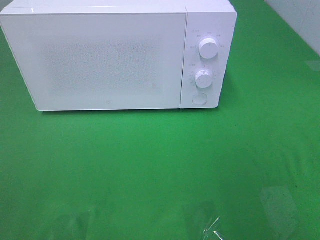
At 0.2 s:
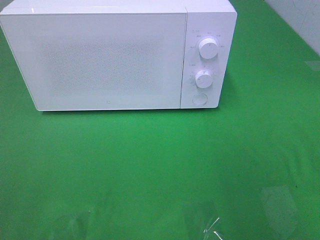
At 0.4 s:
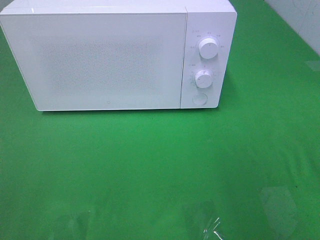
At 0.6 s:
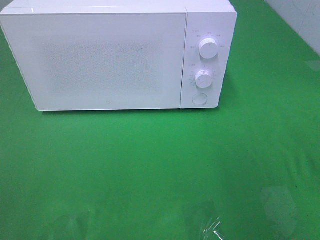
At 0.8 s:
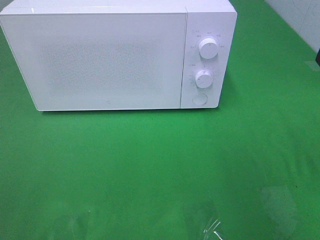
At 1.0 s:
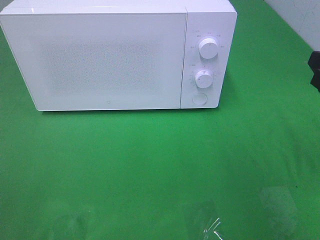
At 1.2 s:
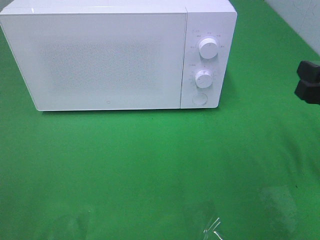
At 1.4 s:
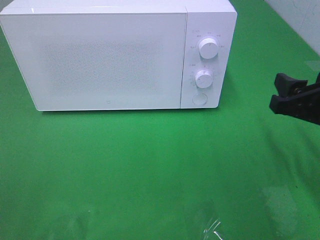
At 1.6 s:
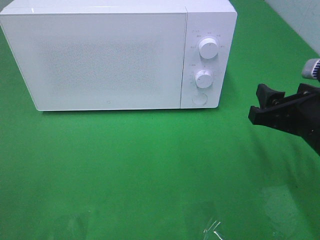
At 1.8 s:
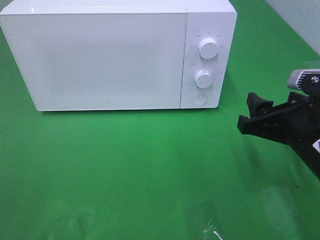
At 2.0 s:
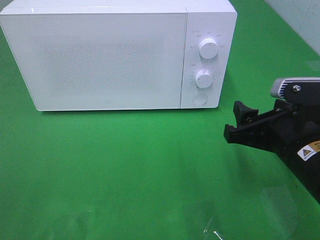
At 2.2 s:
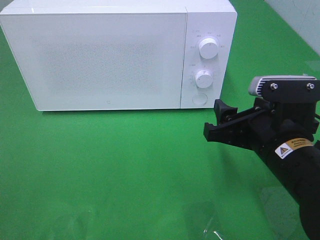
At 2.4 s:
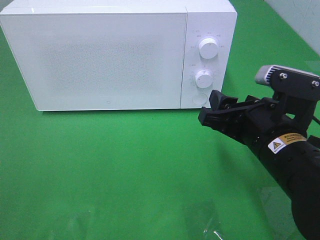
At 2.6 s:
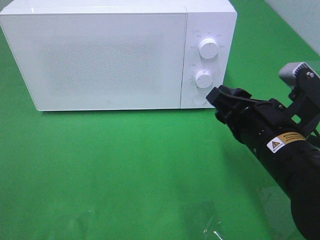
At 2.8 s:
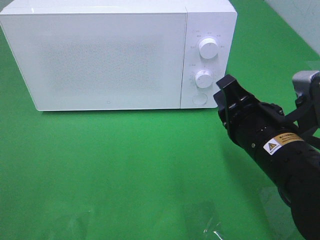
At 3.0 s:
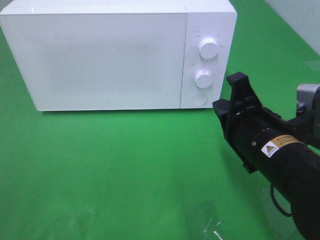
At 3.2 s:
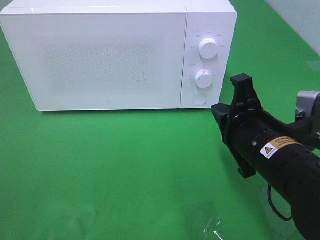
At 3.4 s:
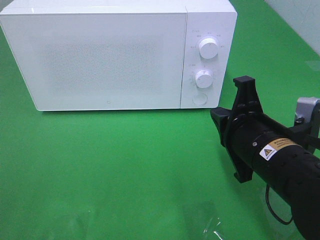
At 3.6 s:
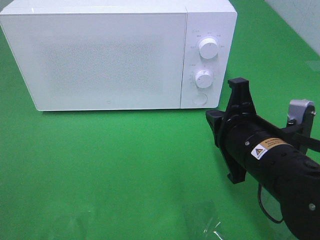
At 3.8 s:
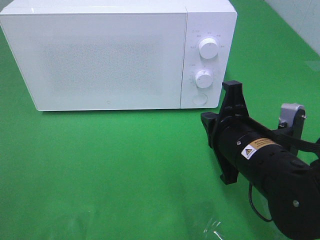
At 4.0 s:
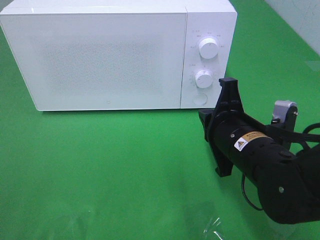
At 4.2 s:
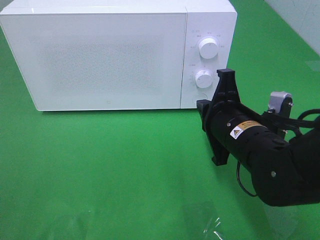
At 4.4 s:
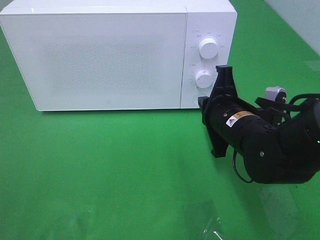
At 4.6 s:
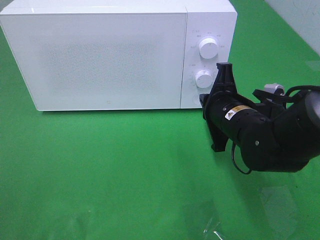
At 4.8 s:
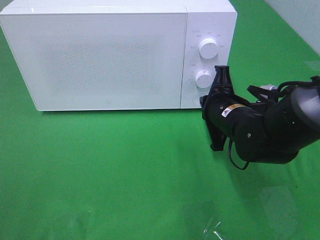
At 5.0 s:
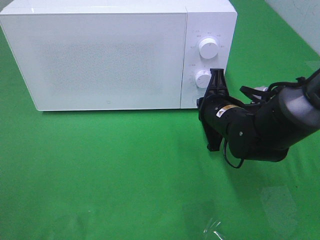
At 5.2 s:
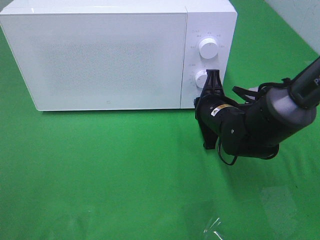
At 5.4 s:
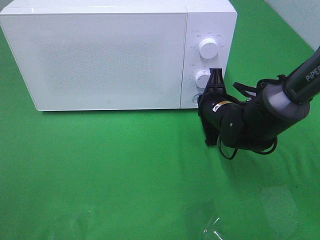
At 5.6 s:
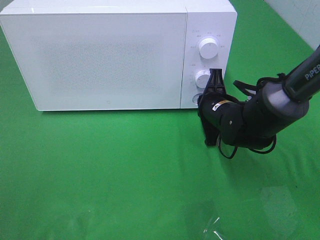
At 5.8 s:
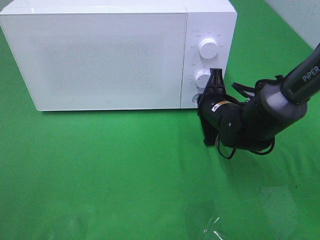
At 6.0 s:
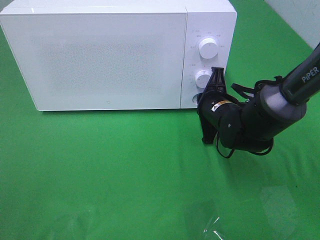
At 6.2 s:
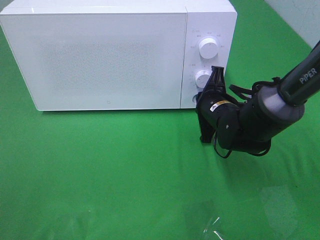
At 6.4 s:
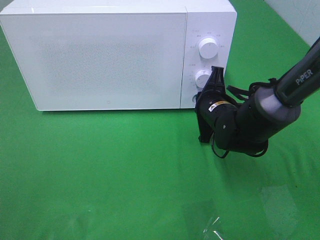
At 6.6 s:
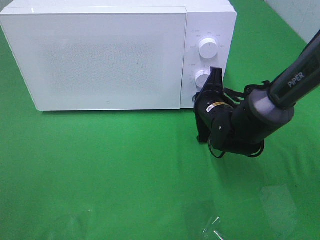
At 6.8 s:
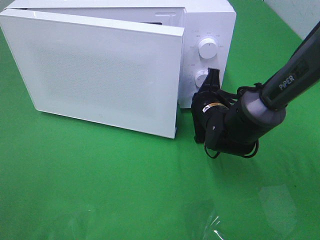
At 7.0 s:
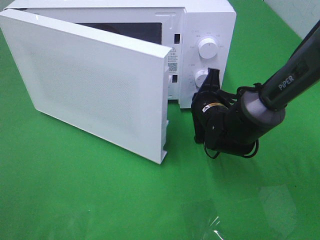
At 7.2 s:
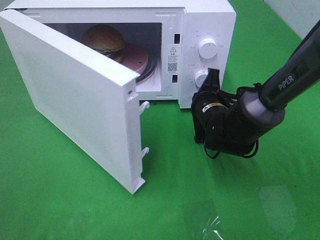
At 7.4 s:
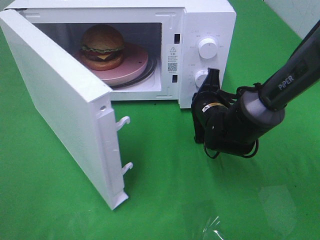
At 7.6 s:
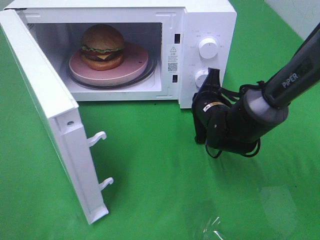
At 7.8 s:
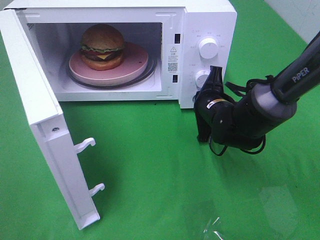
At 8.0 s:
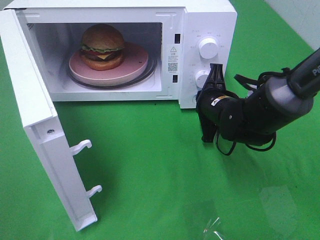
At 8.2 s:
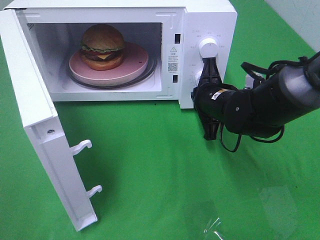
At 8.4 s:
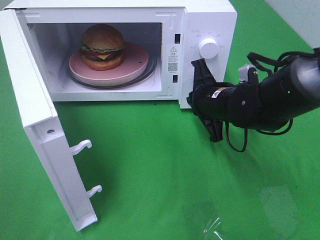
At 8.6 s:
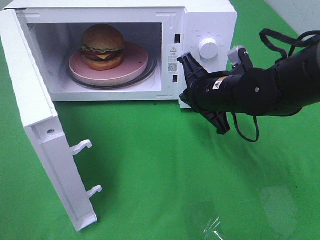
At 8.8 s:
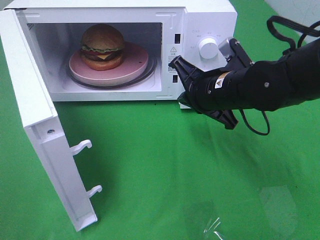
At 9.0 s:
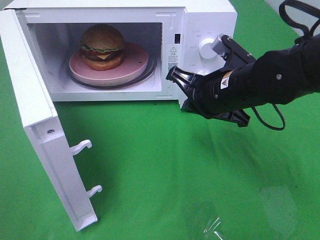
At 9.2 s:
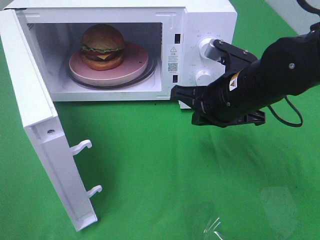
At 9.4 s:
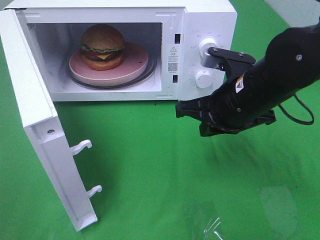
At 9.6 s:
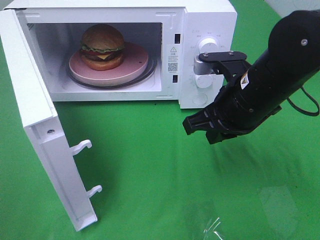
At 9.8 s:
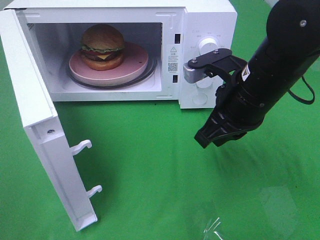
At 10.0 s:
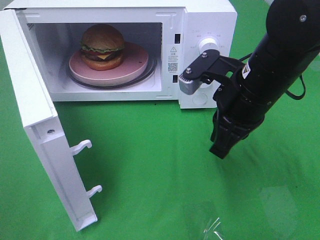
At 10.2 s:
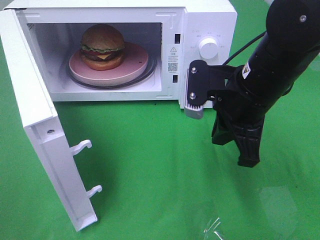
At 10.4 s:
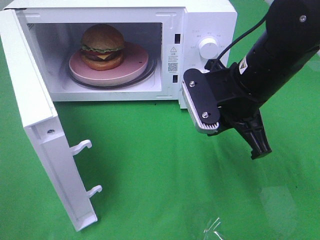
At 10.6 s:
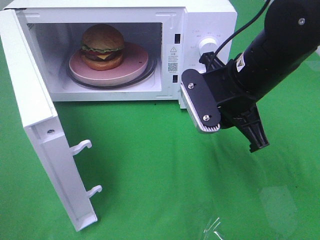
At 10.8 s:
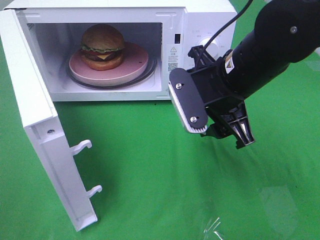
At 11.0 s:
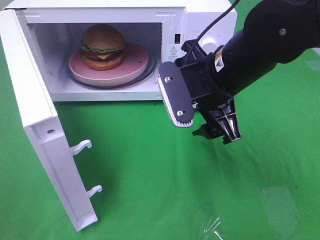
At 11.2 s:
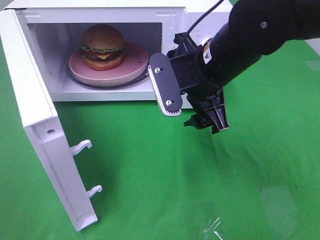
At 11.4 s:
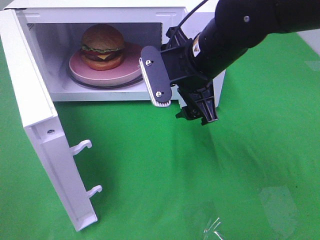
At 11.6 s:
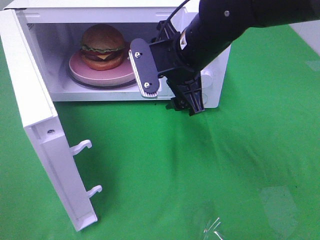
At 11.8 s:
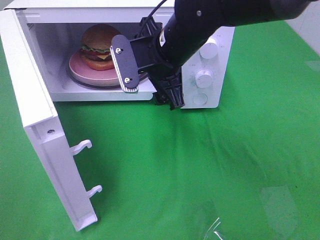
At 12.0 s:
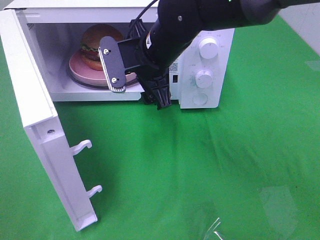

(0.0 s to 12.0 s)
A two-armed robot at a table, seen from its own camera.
Task of the whole recording: Heat the burger.
Step, 0.0 s - 8.2 s: Right hand: press the switch.
0.0 s - 1.6 s: The right gripper moves downward, forward and to the left, about 15 cm.
1.6 s - 3.0 s: The right gripper is displaced to the left by some 10 cm, and closes its fingers.
3.0 s - 4.4 s: The right gripper travels forward by approximately 5 cm.
4.4 s - 6.0 s: The right gripper is displaced forward by approximately 10 cm.
7.6 s - 9.0 s: The right gripper is displaced upward and backward by about 10 cm.
10.4 s - 12.0 s: The right gripper travels to the left and forward by about 15 cm, and opens up.

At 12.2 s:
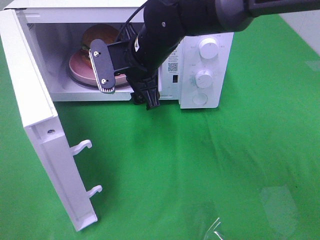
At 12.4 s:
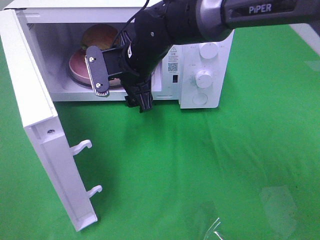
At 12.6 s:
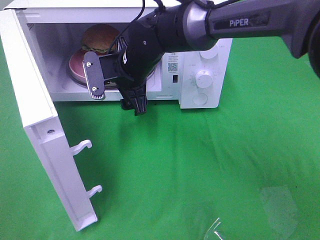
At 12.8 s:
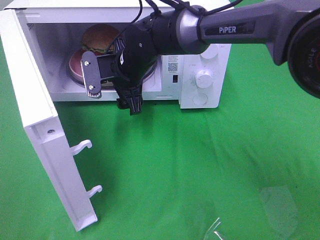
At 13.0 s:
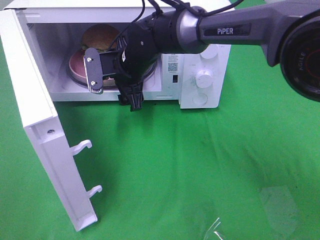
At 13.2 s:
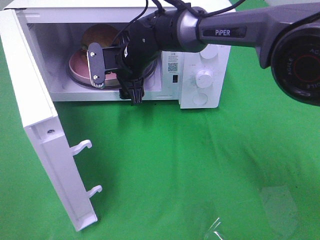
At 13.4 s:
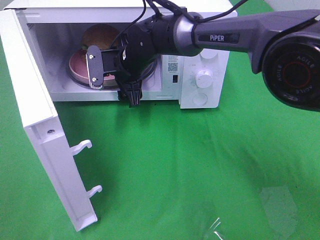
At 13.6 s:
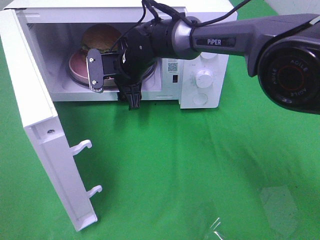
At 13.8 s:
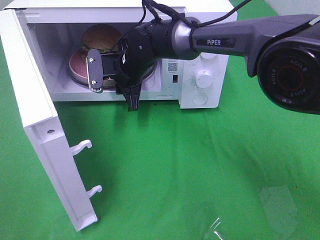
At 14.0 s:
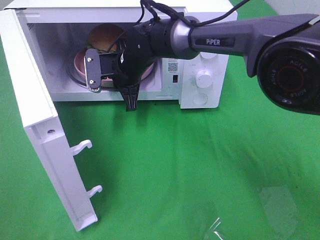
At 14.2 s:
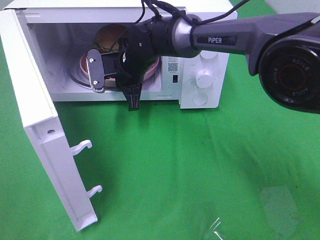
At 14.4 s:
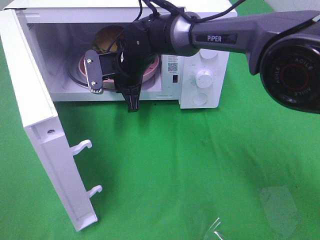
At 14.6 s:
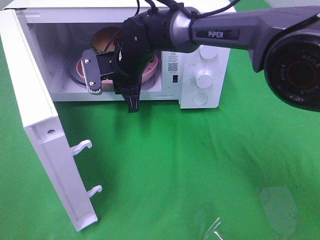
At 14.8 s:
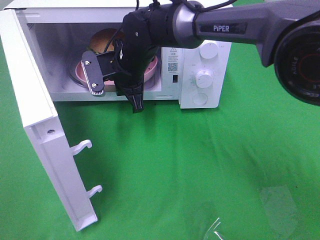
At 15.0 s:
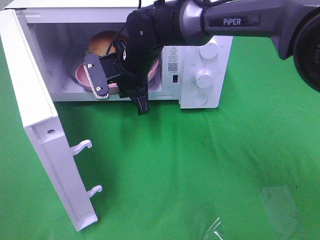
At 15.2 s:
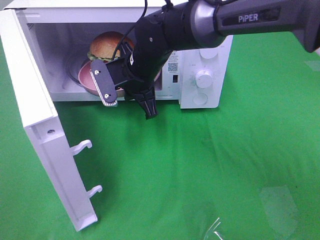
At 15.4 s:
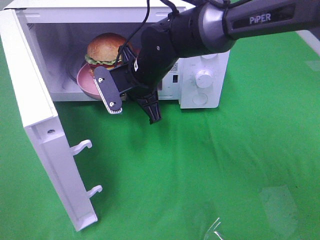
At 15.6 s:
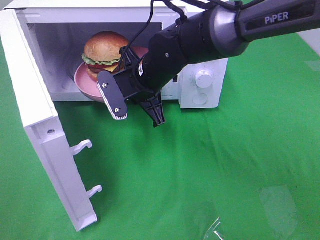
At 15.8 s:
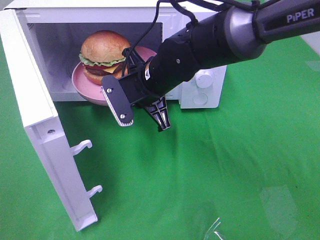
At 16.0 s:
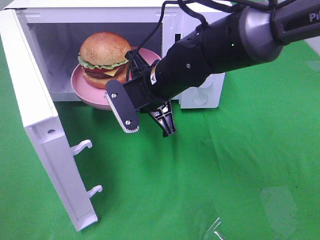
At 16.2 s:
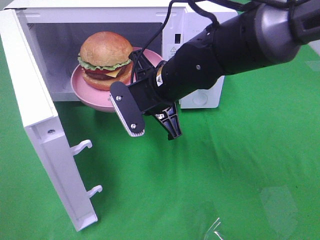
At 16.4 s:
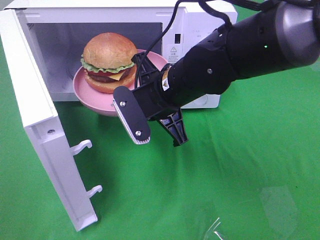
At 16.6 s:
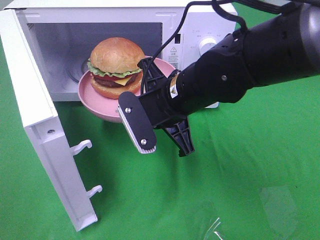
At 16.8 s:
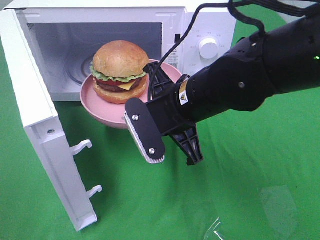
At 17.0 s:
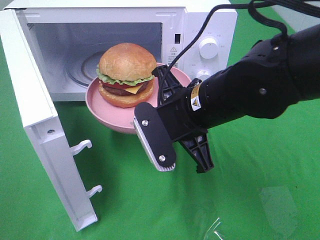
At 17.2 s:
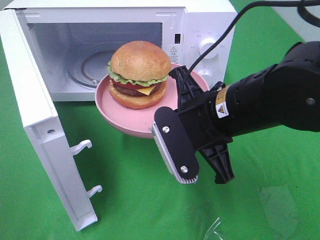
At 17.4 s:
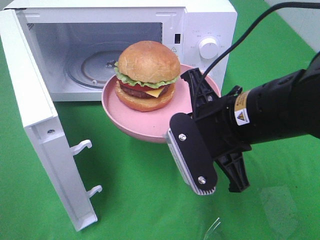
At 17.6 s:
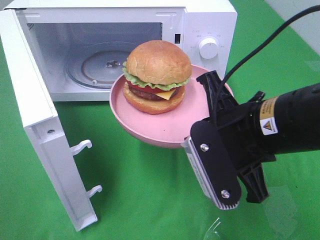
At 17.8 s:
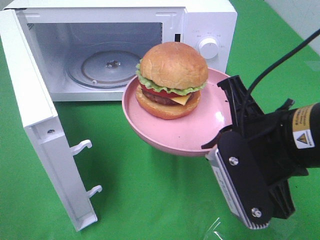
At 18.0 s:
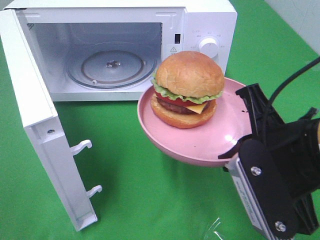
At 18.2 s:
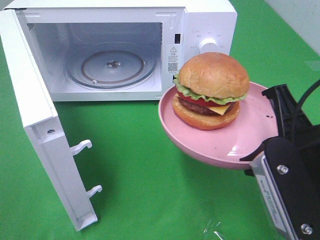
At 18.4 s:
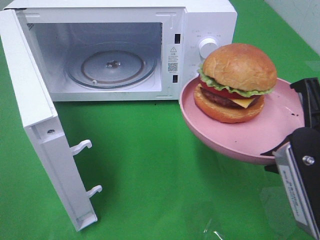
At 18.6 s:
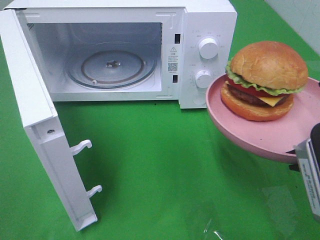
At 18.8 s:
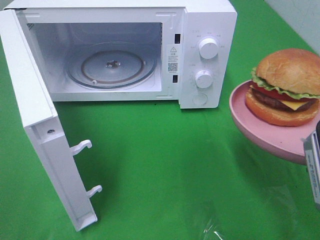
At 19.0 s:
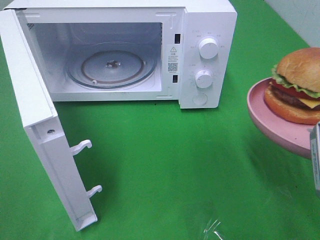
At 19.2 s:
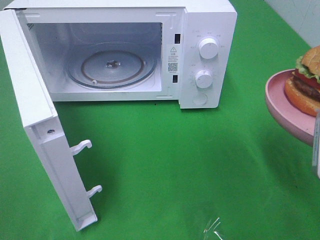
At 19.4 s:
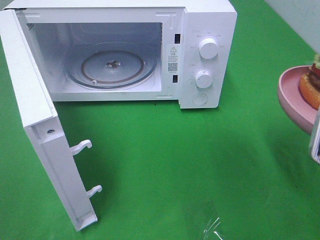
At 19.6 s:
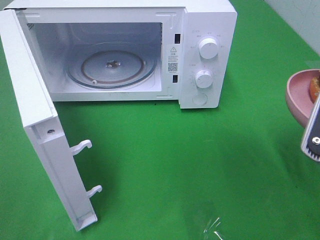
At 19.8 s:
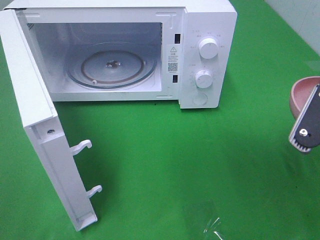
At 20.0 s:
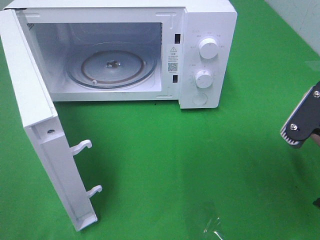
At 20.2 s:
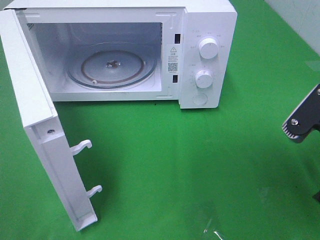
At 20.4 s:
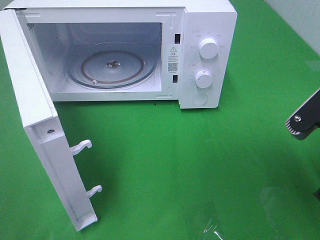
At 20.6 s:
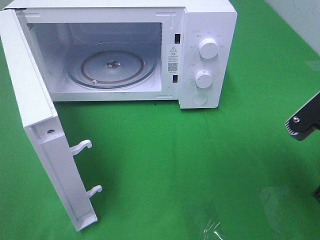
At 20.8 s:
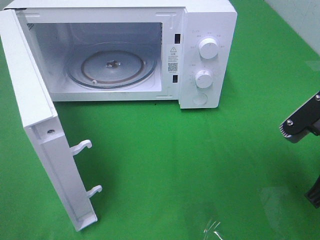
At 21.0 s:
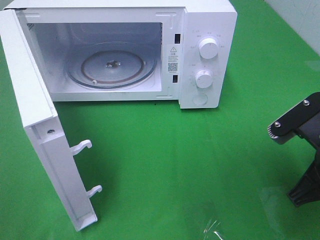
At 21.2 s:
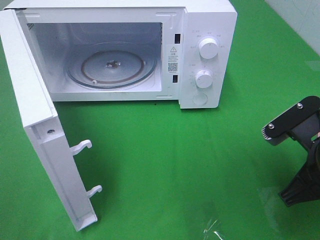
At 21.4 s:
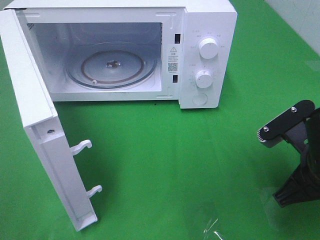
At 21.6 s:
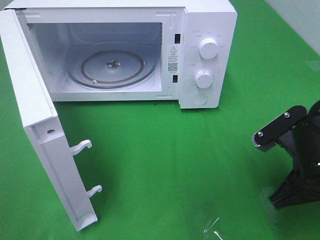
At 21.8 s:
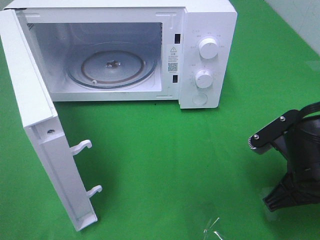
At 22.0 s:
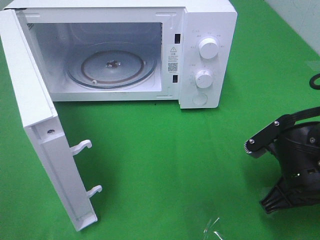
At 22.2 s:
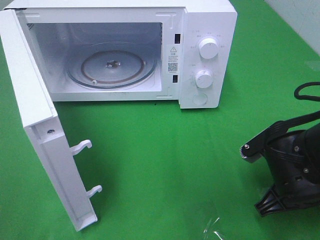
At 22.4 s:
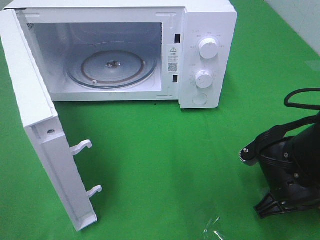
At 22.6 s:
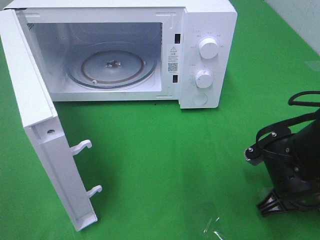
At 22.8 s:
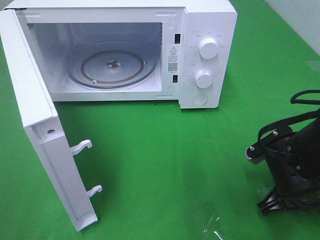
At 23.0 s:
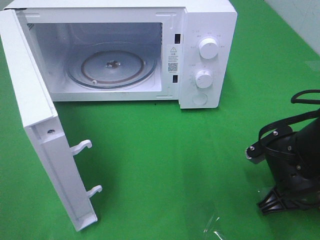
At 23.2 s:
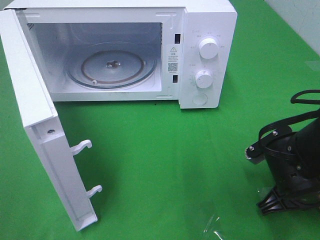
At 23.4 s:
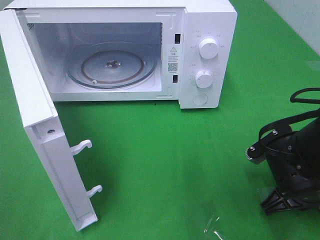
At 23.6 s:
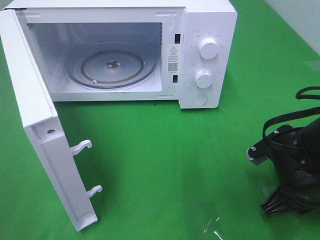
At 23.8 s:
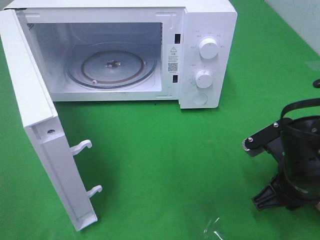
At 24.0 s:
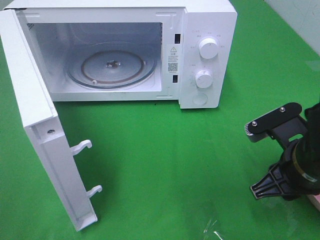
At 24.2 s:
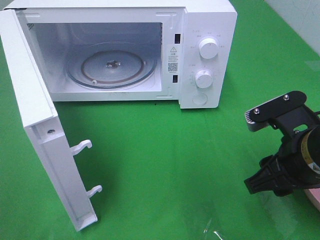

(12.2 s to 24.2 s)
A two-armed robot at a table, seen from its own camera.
Task of the whole recording: Heat the burger.
Step, 12.2 s - 14.6 s: Right hand: grab the plate with the hamburger.
Step, 14.8 s - 23.8 s: Right hand: place the plate on the table.
12.2 s - 13.8 s: The right gripper travels forward and downward by approximately 10 cm, and closes up.
13.8 s - 15.2 s: The right gripper shifts about 5 cm backward.
15.2 s - 16.6 s: The right gripper heads backward and to the right, covering approximately 15 cm.
16.6 s - 18.2 s: The right gripper is displaced backward and to the right by approximately 20 cm.
19.8 s - 21.2 s: The right gripper travels downward by some 5 cm.
21.2 s - 22.6 s: The right gripper travels downward by some 10 cm.
22.6 s - 24.2 s: The right gripper shifts about 10 cm upward, and opens its fingers.
